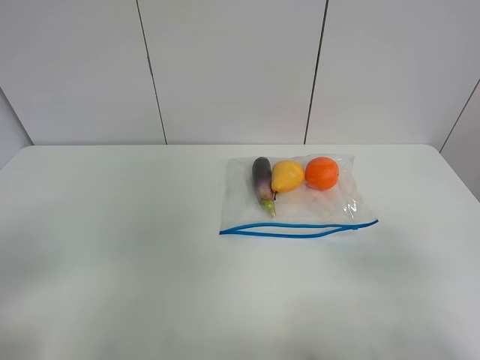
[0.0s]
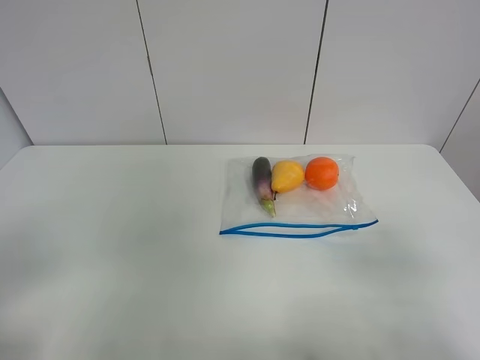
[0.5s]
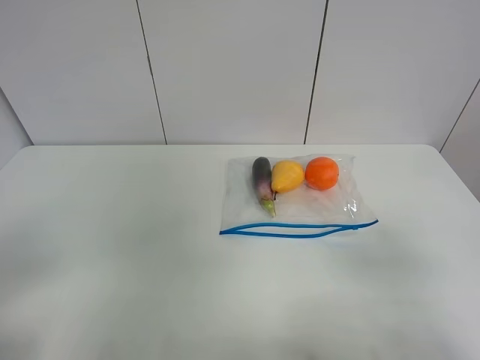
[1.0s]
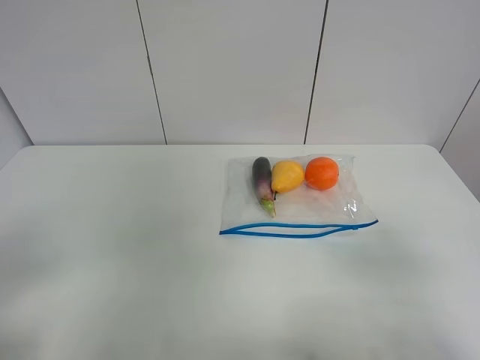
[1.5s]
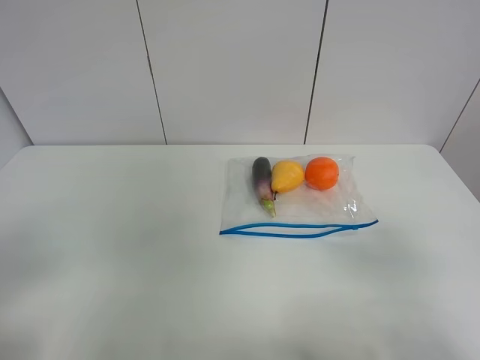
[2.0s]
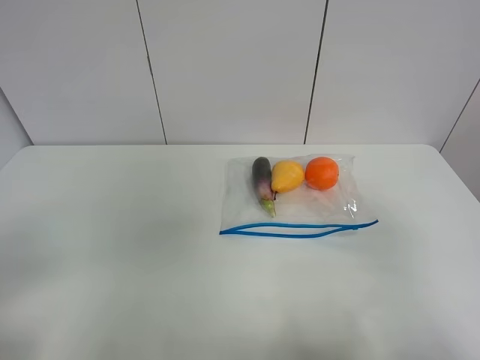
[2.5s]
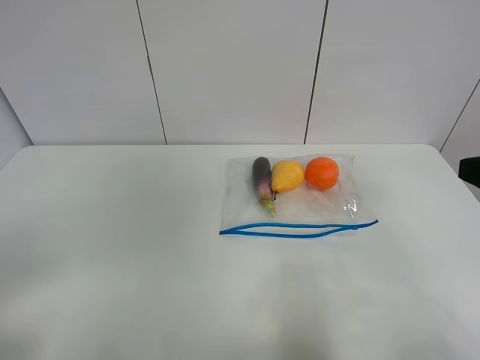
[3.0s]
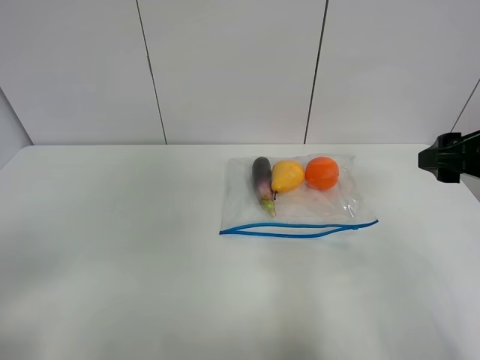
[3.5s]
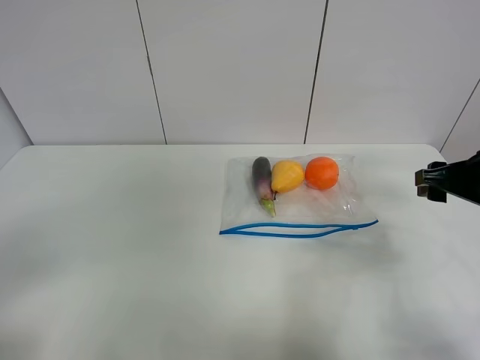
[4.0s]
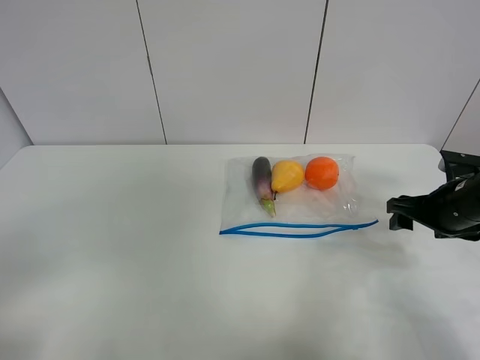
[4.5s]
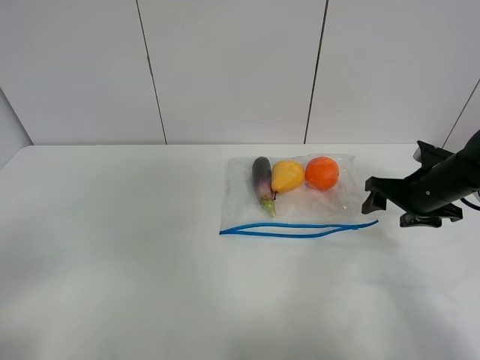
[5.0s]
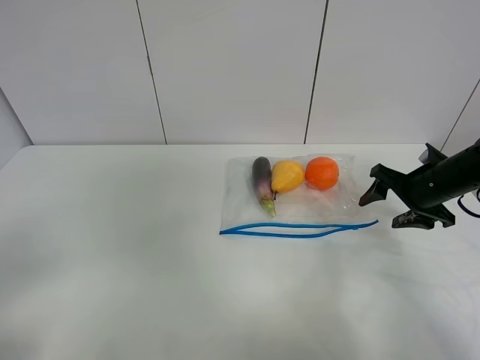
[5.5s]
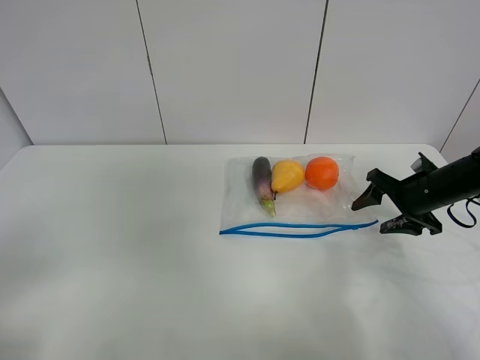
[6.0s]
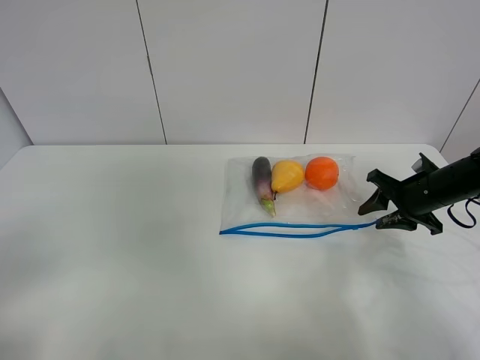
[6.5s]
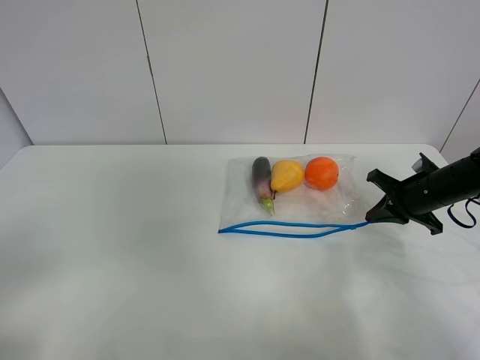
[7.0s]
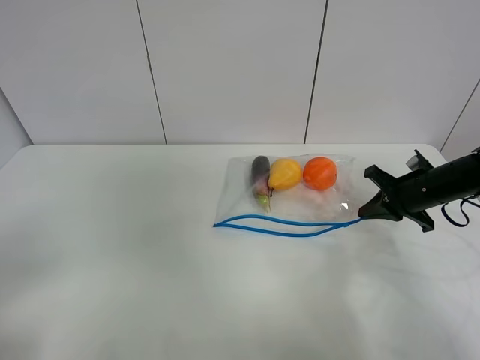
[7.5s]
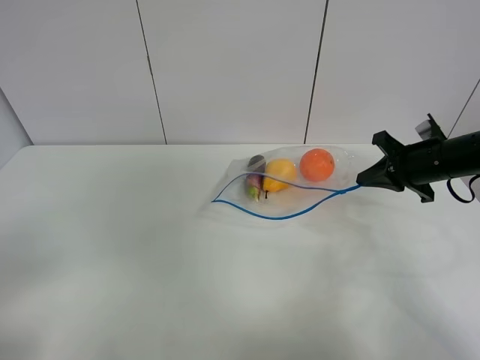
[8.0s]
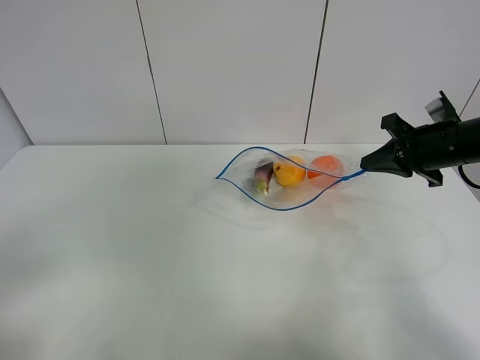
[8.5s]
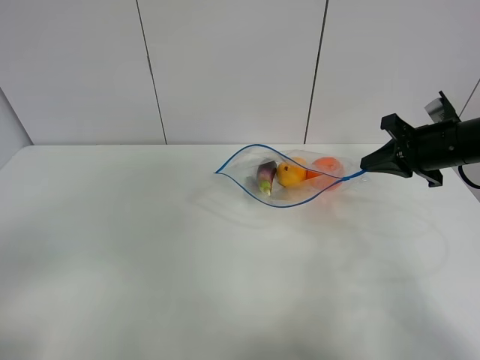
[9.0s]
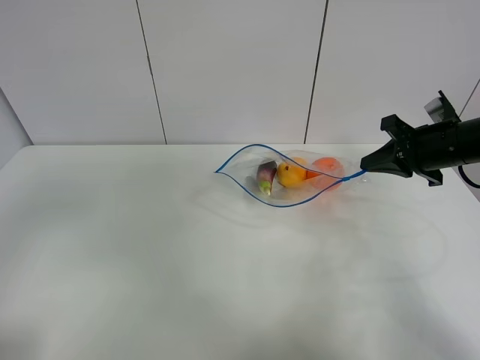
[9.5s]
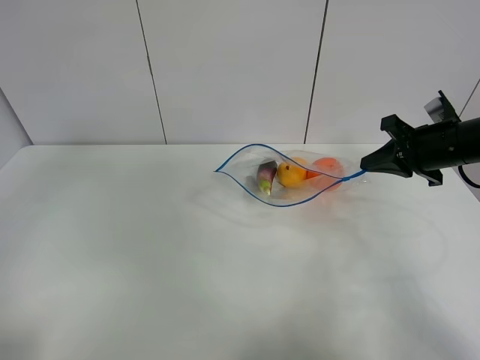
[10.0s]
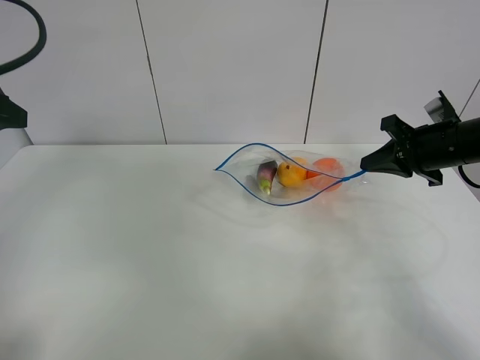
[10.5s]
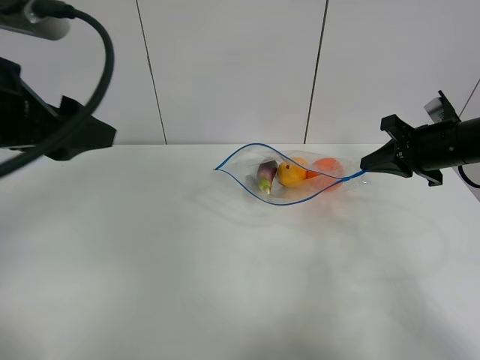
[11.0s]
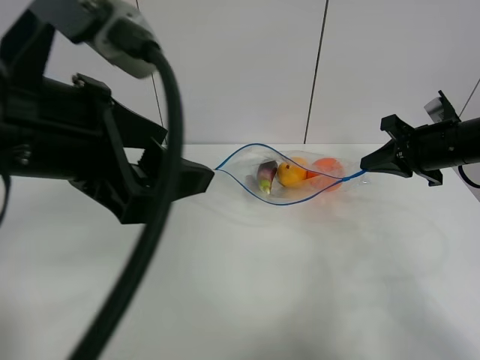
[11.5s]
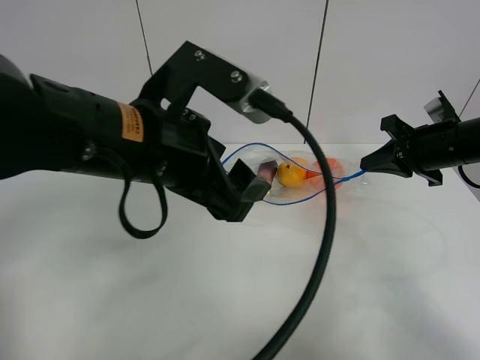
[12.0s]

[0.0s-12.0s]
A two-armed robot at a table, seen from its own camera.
Step, 0.0s to 7.0s: Grasp the fruit bag with right gripper.
Step, 7.5s to 8.5s: Lift the fruit bag with your right gripper.
0.0s to 2.0s: The two grippers keep their place.
2.0s to 4.0s: The right gripper moves forward, about 25 cm.
4.0s to 6.0s: The right gripper goes approximately 15 cm downward and forward.
6.0s to 8.0s: The right gripper travels upward by some 5 cm, and closes.
8.0s to 10.0s: The left gripper moves forward and upward, roughly 20 cm.
10.0s to 12.0s: The left gripper moves to the right, approximately 25 cm.

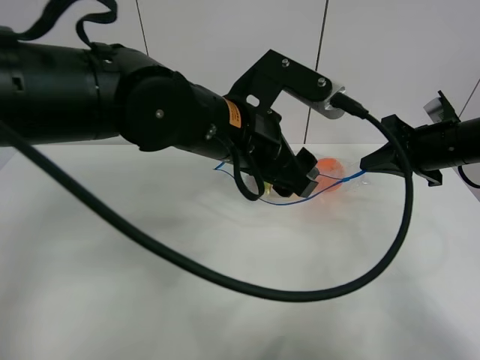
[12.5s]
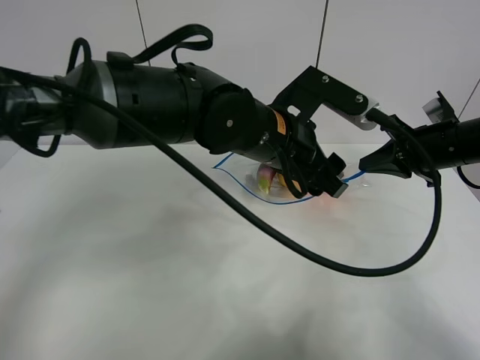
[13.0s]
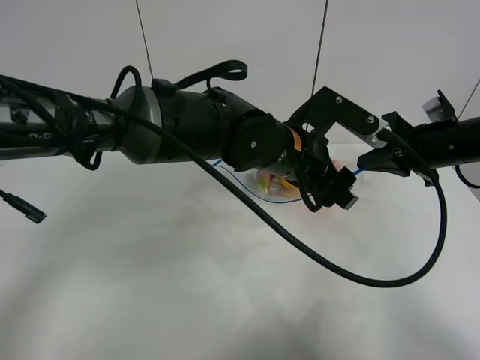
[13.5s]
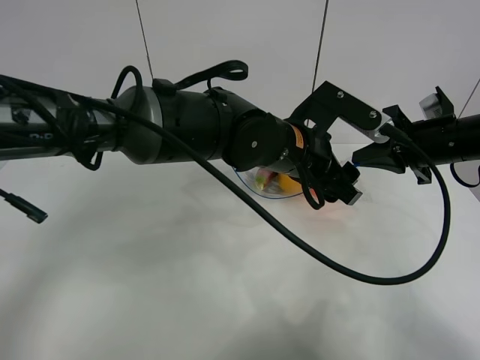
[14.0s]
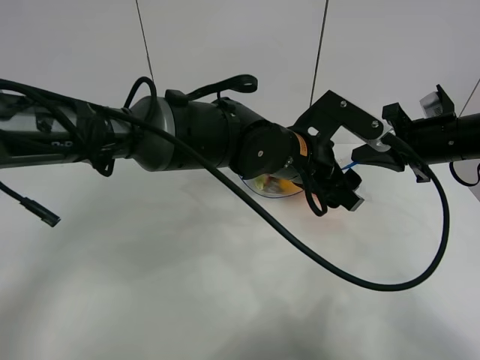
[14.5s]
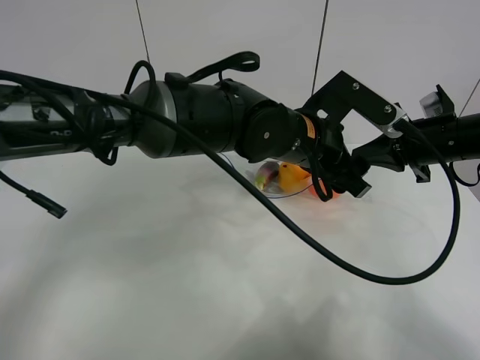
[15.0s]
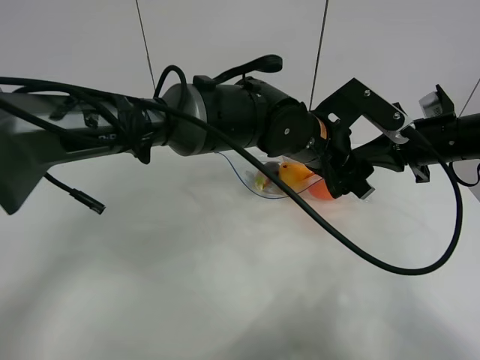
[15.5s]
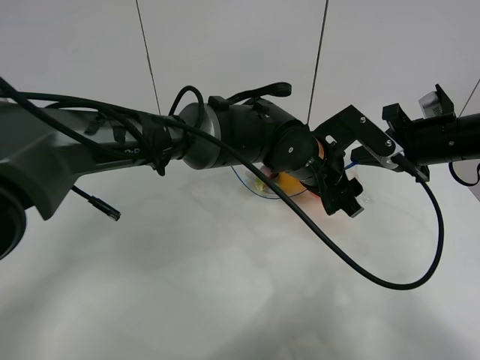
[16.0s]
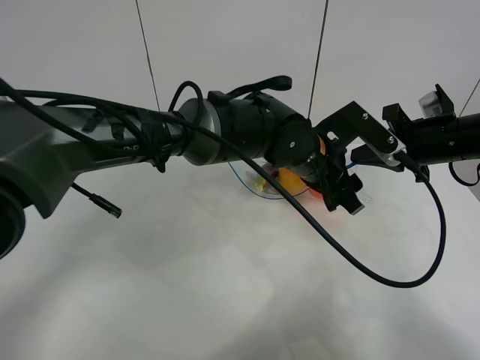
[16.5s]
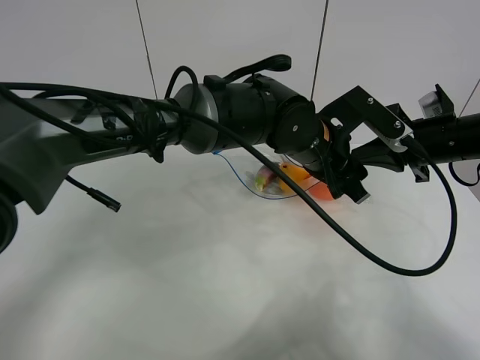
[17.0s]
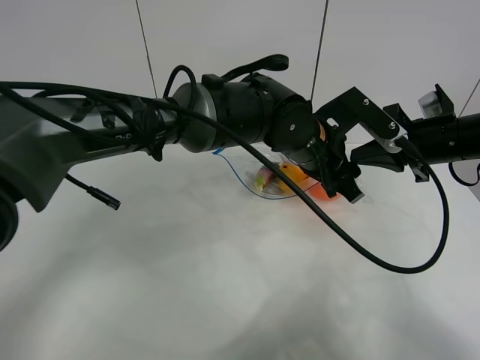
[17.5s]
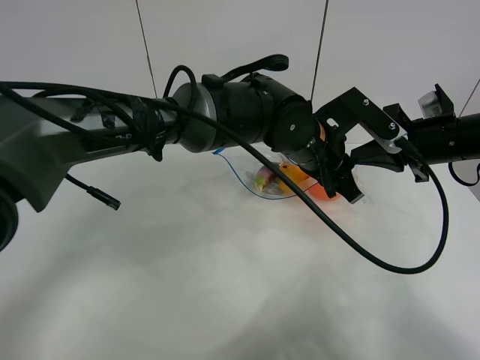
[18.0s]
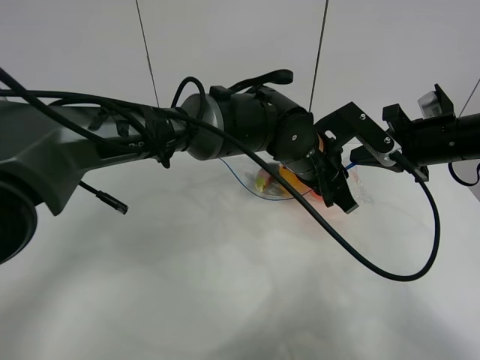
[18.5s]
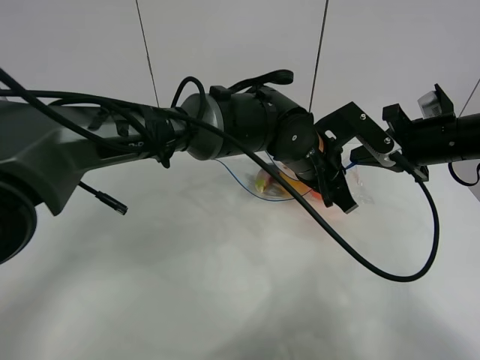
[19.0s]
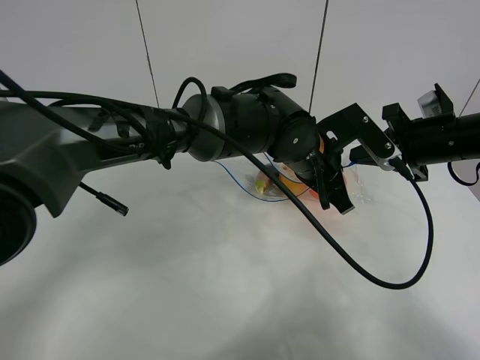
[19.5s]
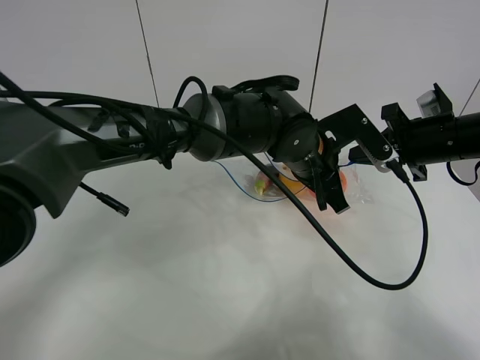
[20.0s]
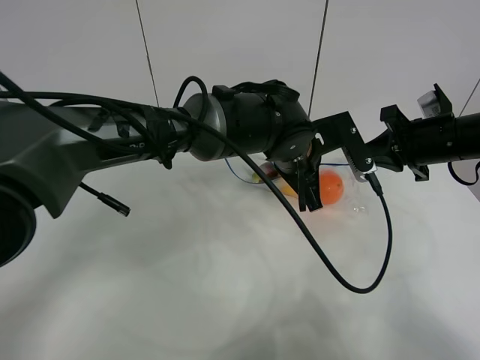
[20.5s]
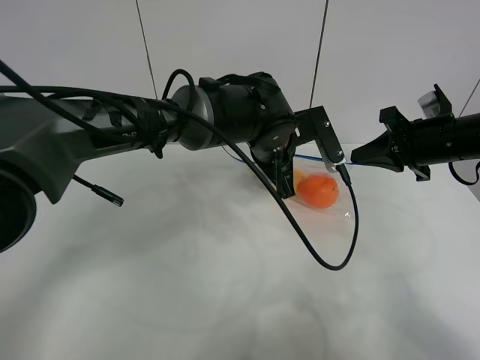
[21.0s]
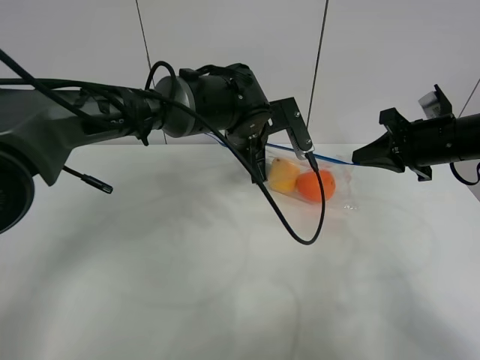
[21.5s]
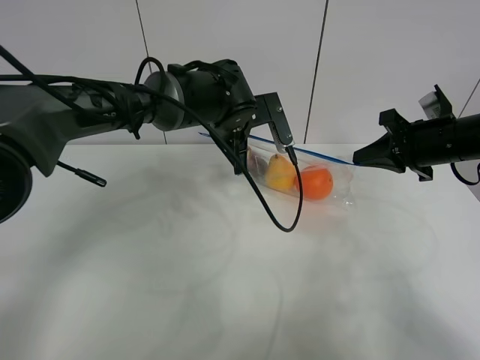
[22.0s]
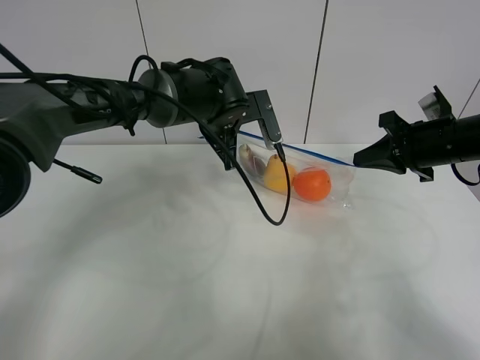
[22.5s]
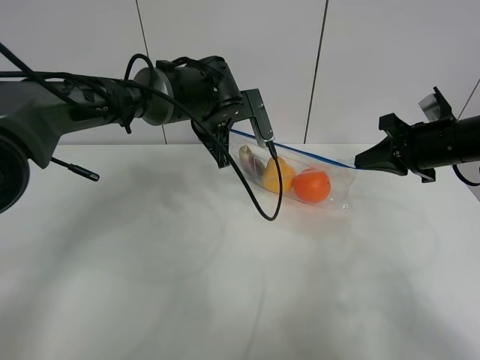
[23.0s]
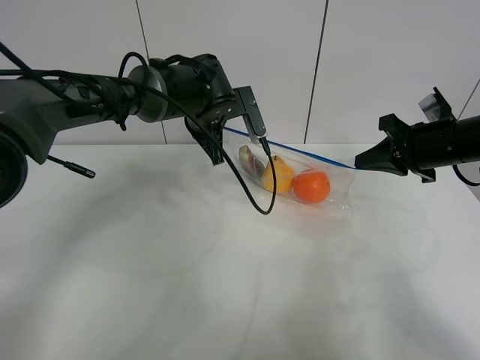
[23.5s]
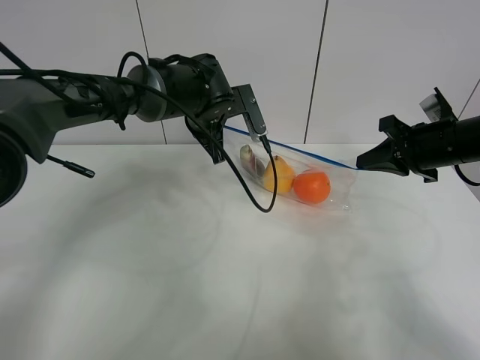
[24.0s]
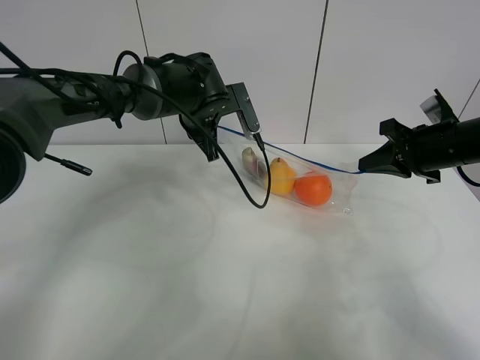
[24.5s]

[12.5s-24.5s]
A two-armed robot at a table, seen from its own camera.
12.5s to 14.5s: The left gripper goes about 10 cm to the right and downward.
14.5s to 16.5s: The grippers move only a little.
16.5s to 18.5s: The left gripper closes up.
18.5s to 20.5s: The left gripper closes up.
20.5s to 22.5s: The left gripper shifts some 15 cm to the left and forward.
22.5s to 24.5s: The grippers stay close to where they were, moving slightly.

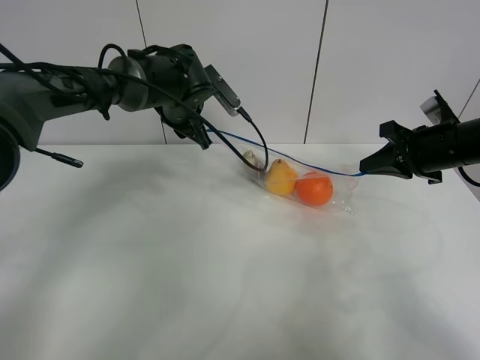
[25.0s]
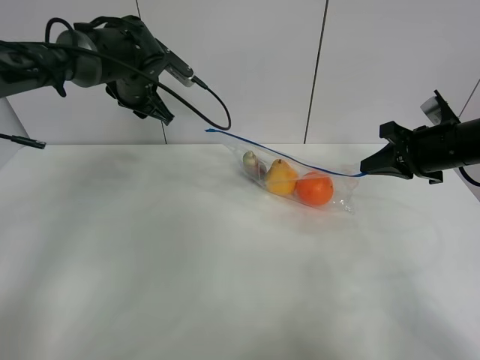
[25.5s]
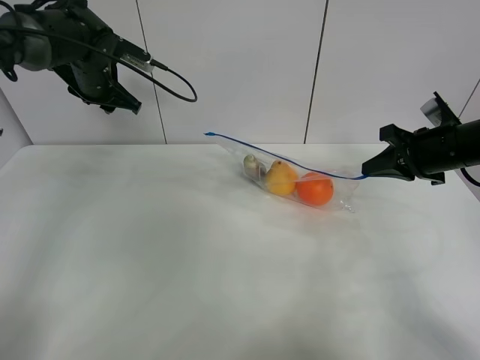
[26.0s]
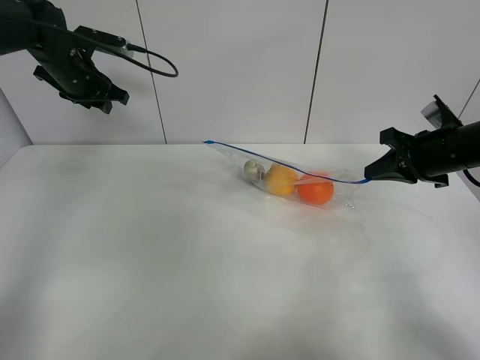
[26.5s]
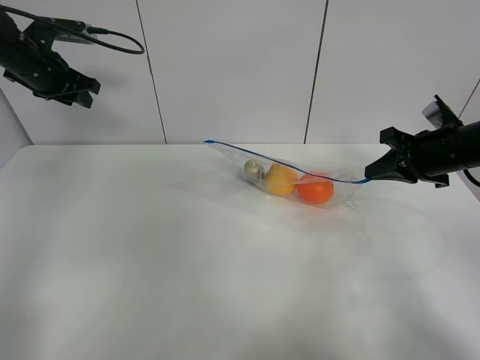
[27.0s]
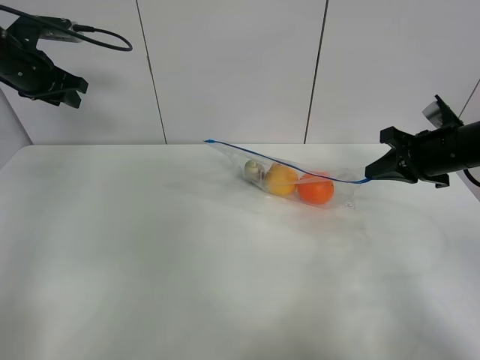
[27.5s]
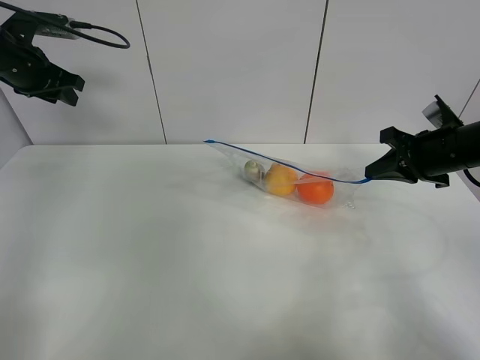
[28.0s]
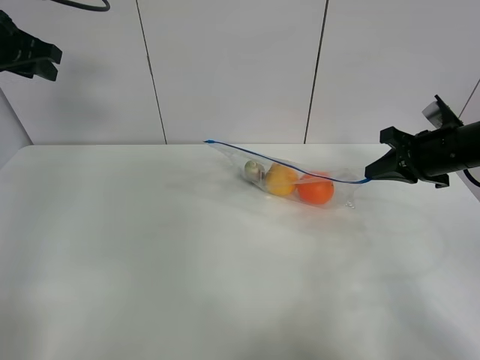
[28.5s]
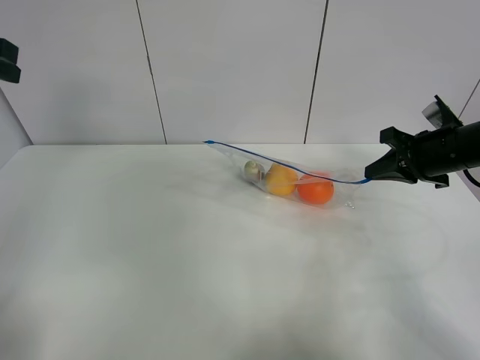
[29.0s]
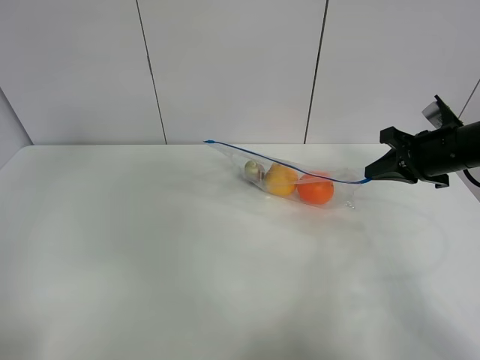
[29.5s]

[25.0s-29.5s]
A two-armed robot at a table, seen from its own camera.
25.0s to 27.0s: The left gripper travels to the left by roughly 25 cm.
27.0s to 29.5s: The left gripper heads backward and upward, covering roughly 30 cm.
